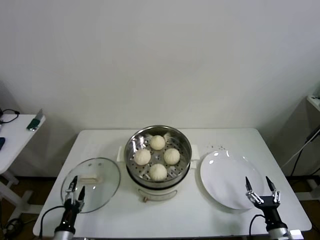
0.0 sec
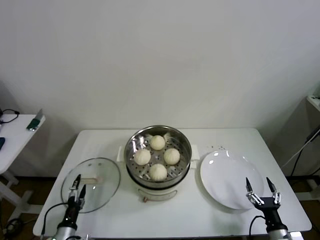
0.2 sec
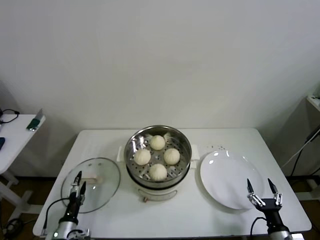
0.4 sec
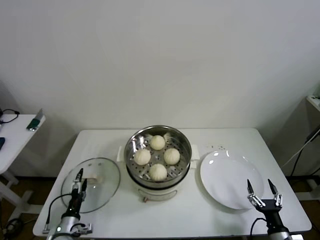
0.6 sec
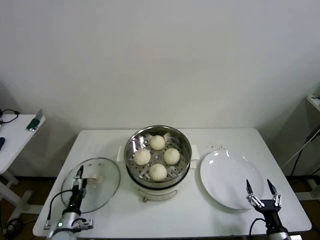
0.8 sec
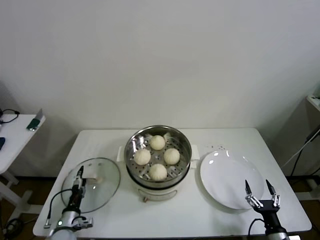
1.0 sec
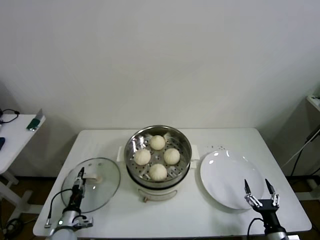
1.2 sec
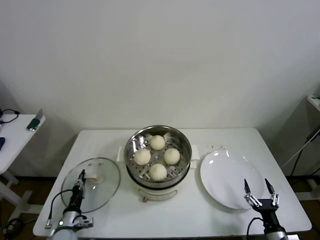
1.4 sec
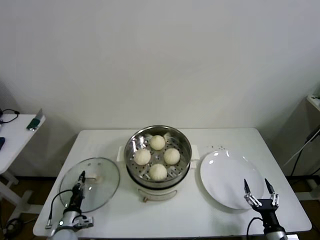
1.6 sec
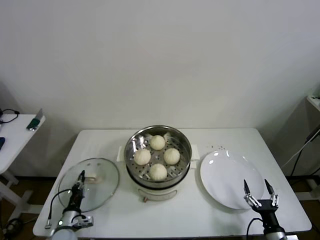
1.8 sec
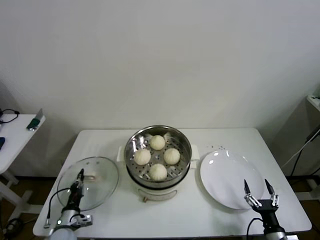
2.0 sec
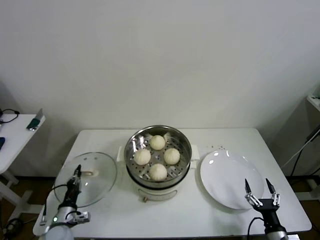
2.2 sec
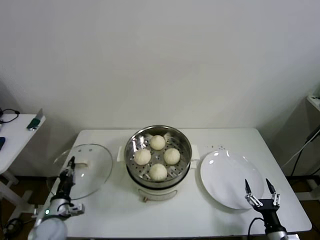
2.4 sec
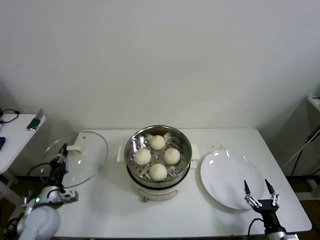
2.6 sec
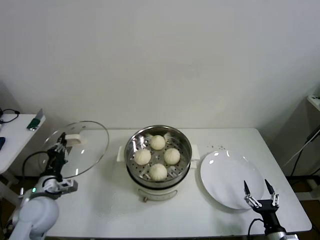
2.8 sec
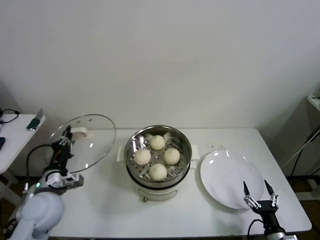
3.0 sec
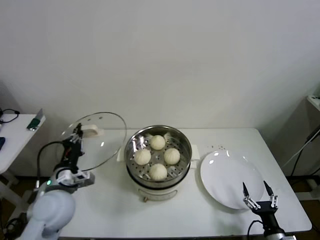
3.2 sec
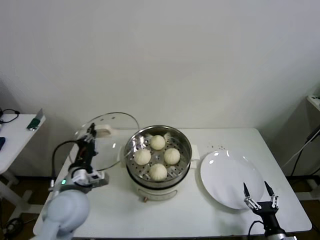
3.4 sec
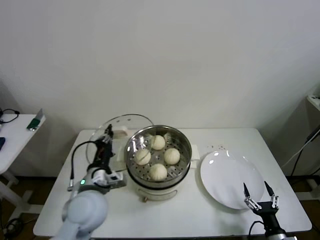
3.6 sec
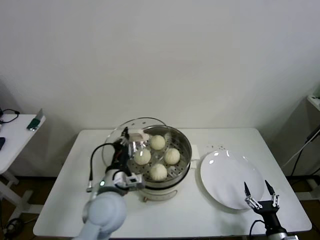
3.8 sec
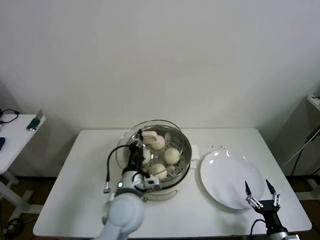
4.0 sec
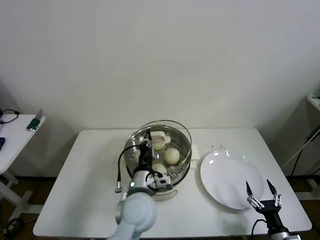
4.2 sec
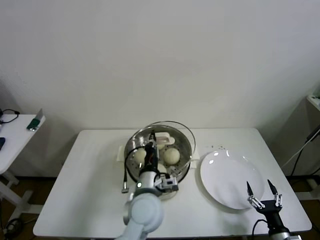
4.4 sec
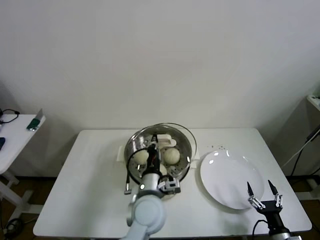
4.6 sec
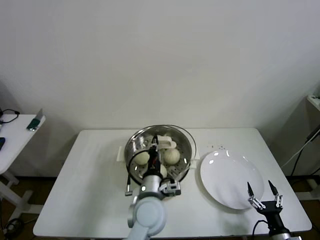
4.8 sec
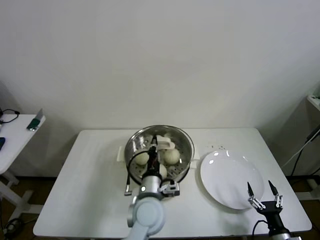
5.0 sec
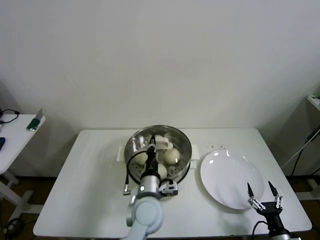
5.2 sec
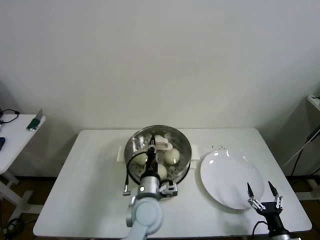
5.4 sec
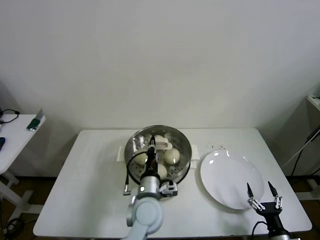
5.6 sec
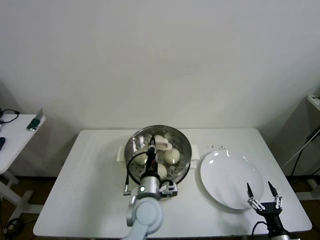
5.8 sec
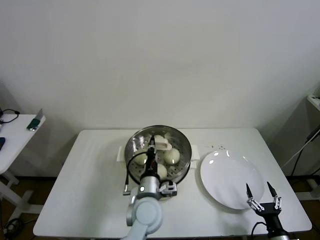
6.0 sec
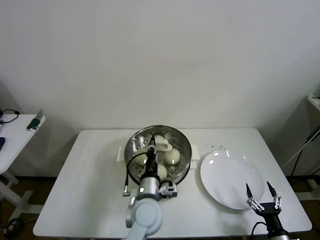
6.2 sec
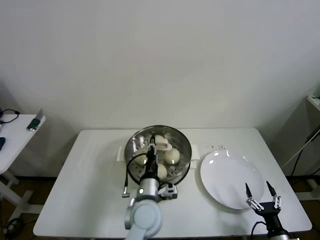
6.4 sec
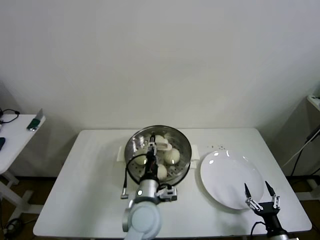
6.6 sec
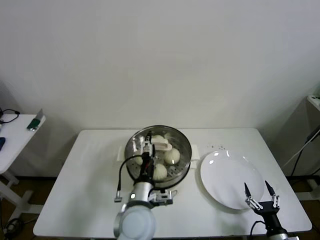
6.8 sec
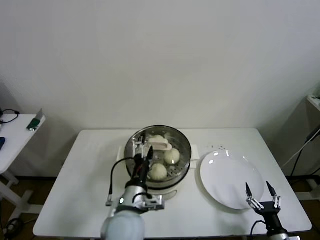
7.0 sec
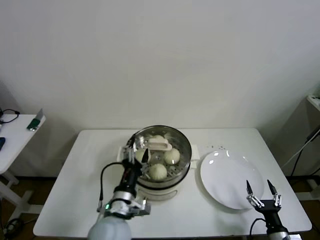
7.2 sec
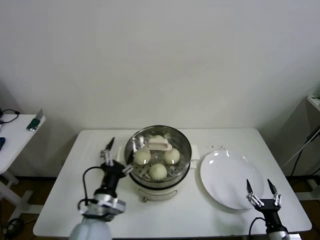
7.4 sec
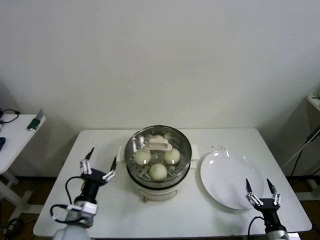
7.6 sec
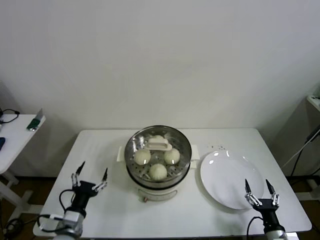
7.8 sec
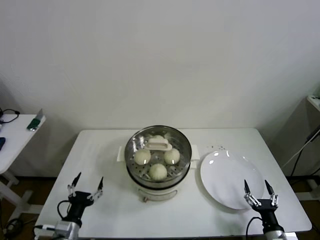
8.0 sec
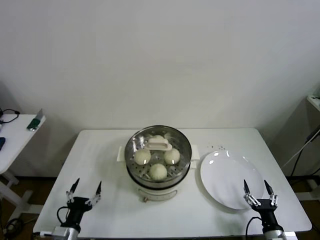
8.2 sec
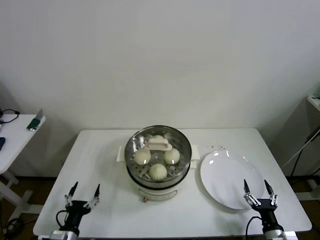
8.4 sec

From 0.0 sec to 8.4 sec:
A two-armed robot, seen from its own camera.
Step, from 1.6 sec to 6.6 sec: Place the pot lid on the steamer with left gripper.
From 0.0 sec to 1.4 sec: The left gripper heads forward, covering some 10 cm, and closes its fingers.
From 1.4 sec to 2.8 sec: The left gripper is displaced upward by roughly 20 cm, and closes its fingers.
From 2.8 sec to 4.2 sec: The left gripper heads to the right, covering about 30 cm.
From 4.2 sec to 5.6 sec: The left gripper moves downward, about 5 cm.
From 5.6 sec to 7.0 sec: The left gripper moves some 5 cm, and opens.
From 7.0 sec to 8.4 sec: The left gripper moves to the left and downward, roughly 30 cm.
